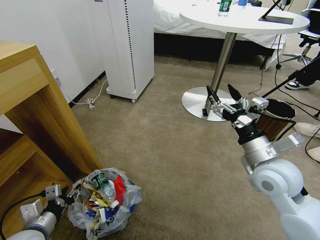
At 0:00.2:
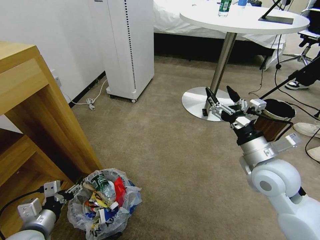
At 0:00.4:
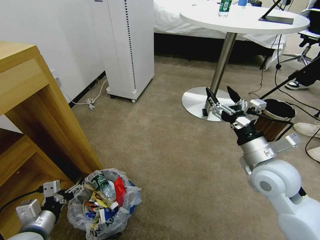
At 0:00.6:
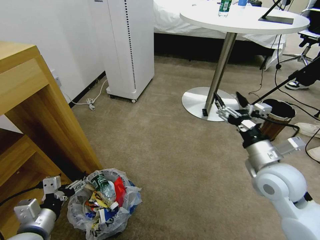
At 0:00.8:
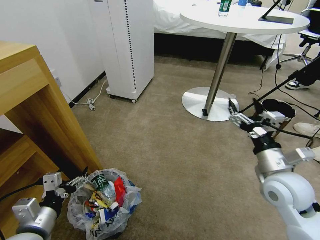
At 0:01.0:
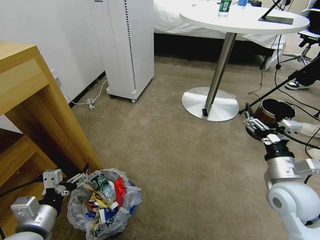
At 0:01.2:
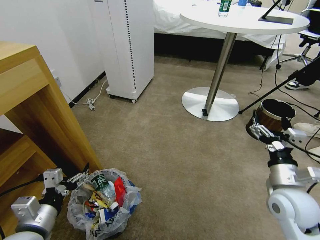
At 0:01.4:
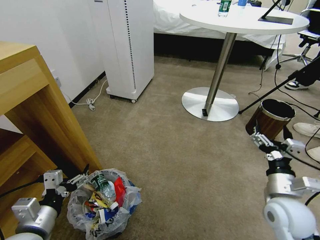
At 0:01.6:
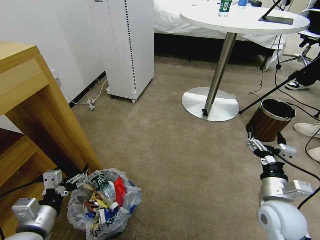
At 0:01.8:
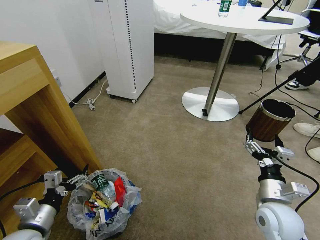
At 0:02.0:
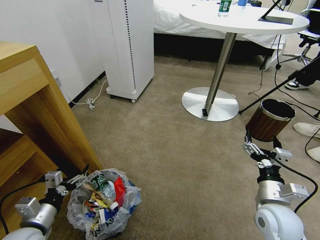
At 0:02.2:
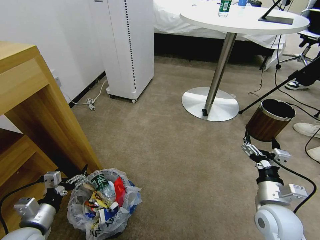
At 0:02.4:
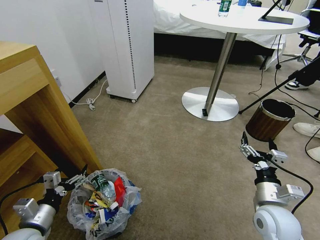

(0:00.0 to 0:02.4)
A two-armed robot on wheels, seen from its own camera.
Task of the whole recording: Pick up the trash bin and place the garbage on the floor into it.
0:00.0 - 0:01.2: The left gripper travels upward by roughly 5 cm, and opens its fingers; the right gripper is displaced downward and to the right by approximately 10 cm.
0:01.2 - 0:02.4: The grippers both shift downward by approximately 5 cm.
